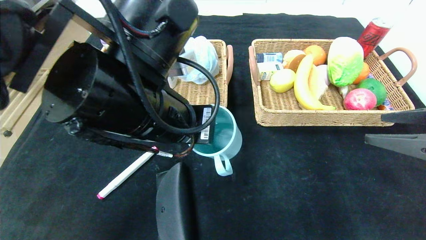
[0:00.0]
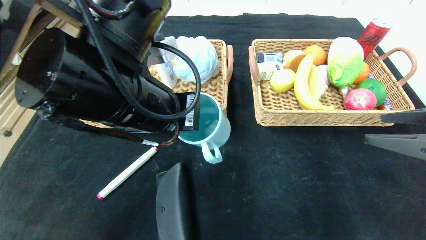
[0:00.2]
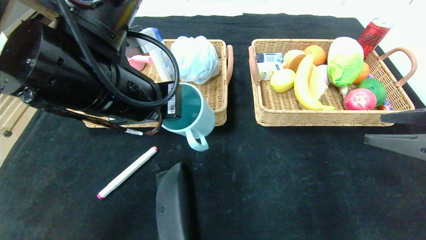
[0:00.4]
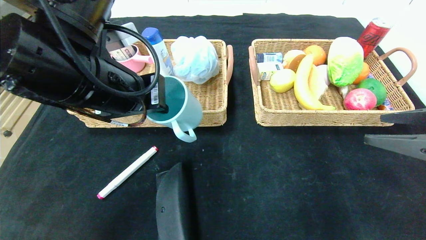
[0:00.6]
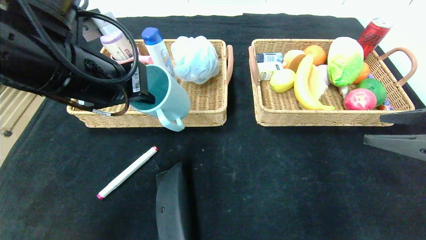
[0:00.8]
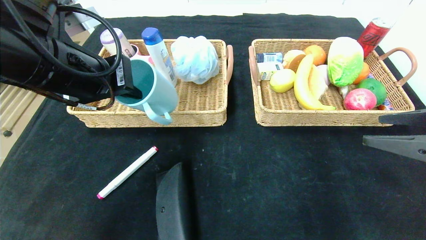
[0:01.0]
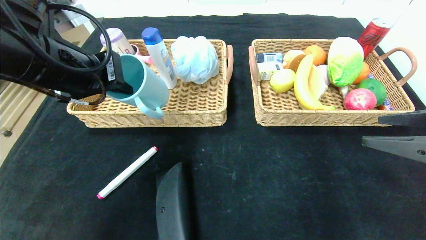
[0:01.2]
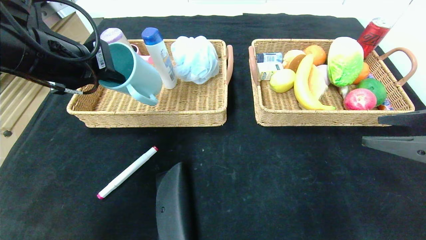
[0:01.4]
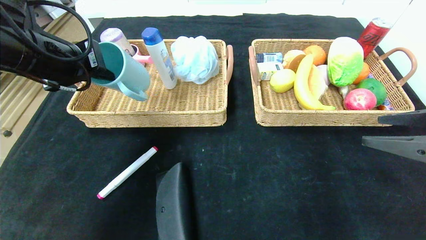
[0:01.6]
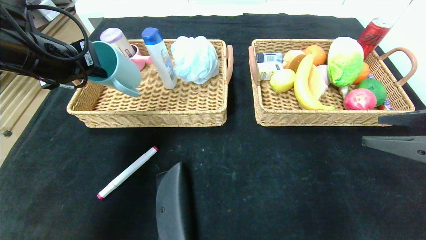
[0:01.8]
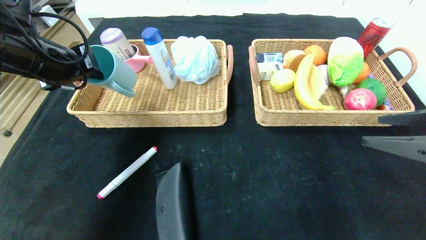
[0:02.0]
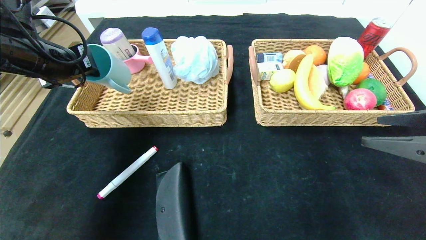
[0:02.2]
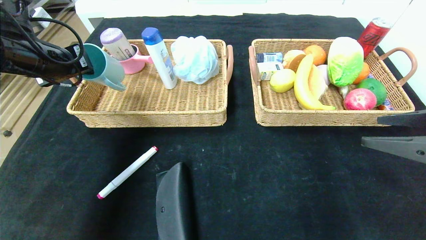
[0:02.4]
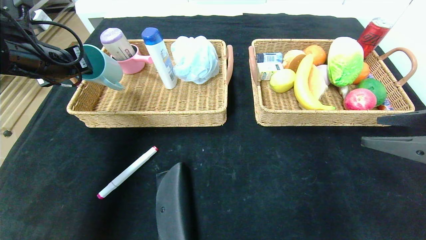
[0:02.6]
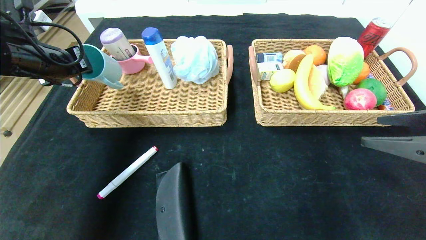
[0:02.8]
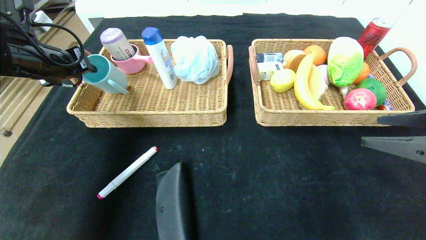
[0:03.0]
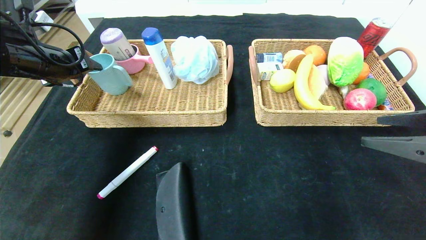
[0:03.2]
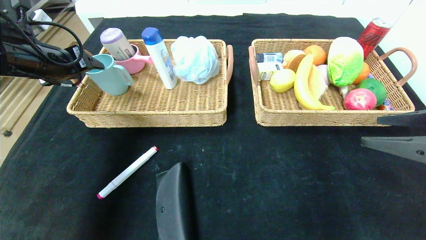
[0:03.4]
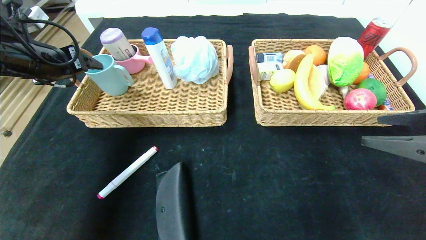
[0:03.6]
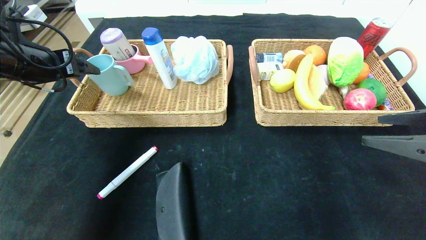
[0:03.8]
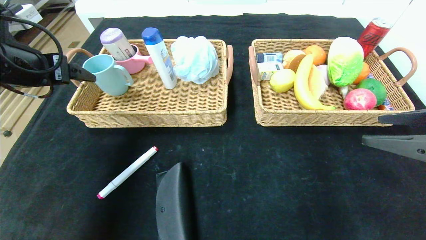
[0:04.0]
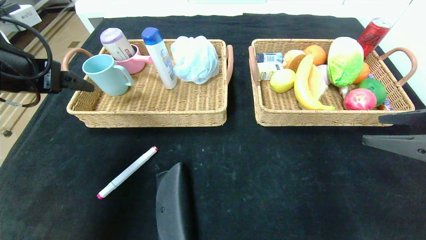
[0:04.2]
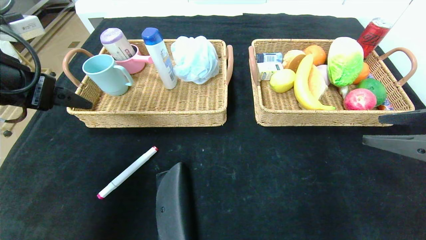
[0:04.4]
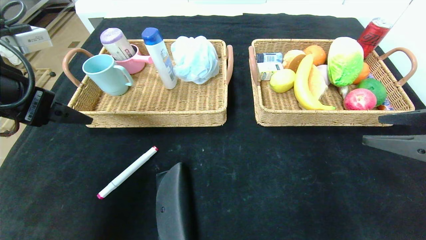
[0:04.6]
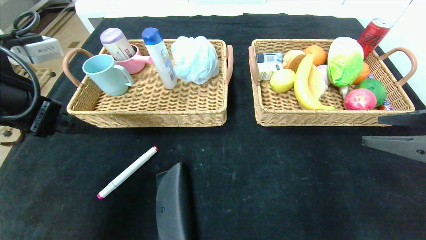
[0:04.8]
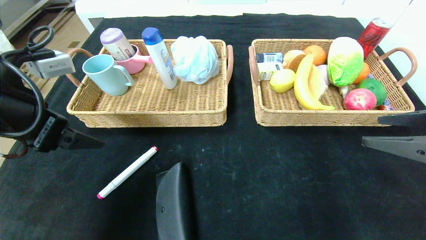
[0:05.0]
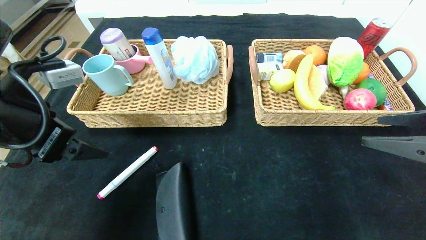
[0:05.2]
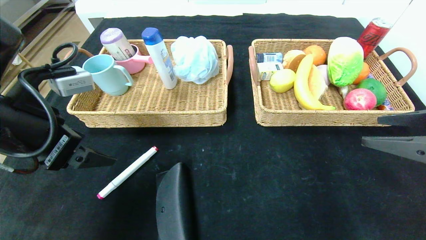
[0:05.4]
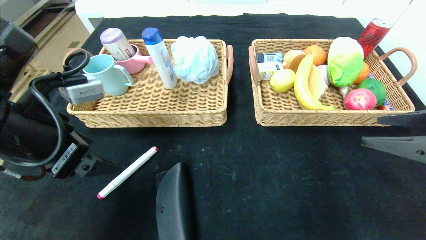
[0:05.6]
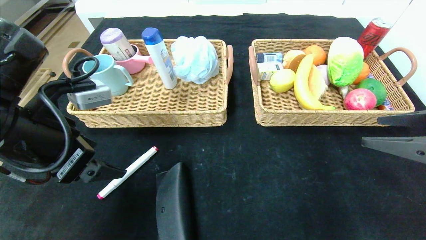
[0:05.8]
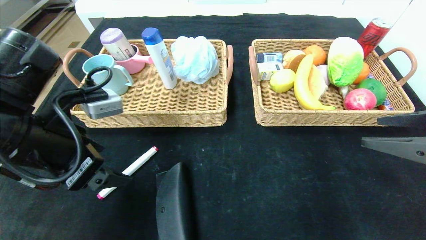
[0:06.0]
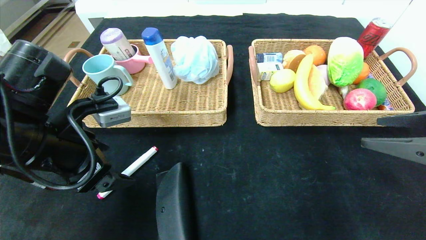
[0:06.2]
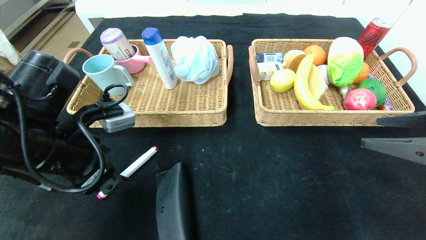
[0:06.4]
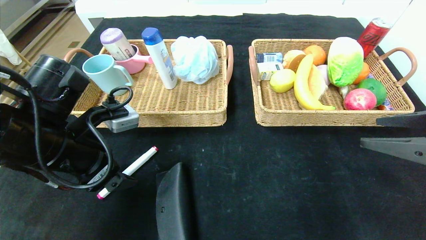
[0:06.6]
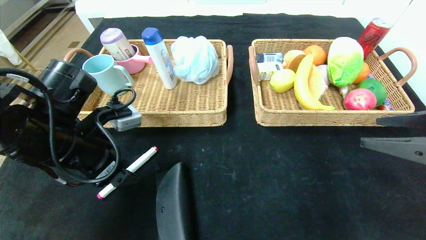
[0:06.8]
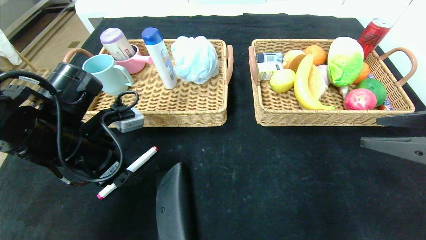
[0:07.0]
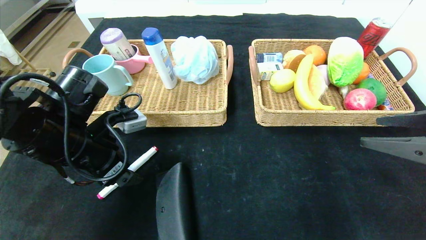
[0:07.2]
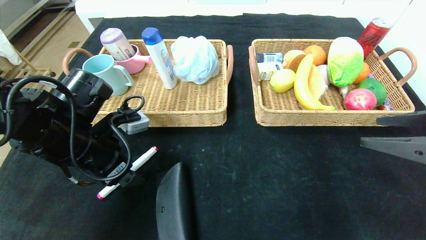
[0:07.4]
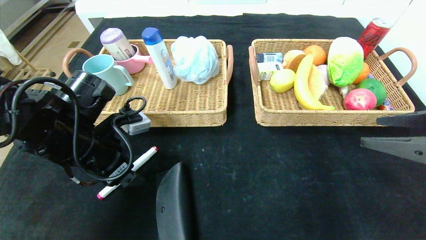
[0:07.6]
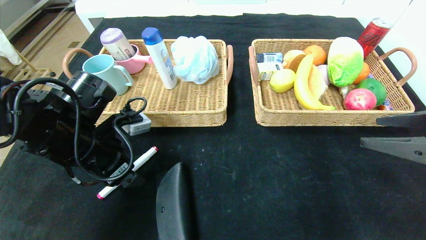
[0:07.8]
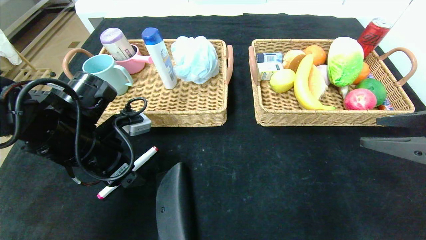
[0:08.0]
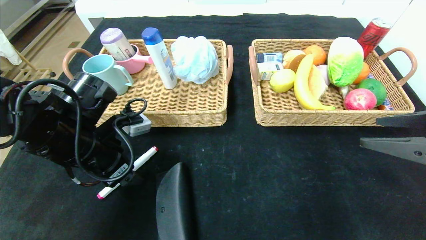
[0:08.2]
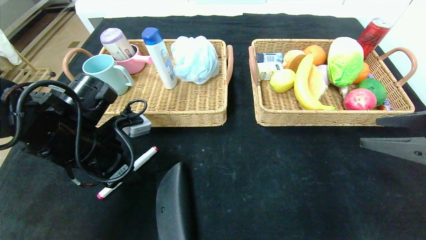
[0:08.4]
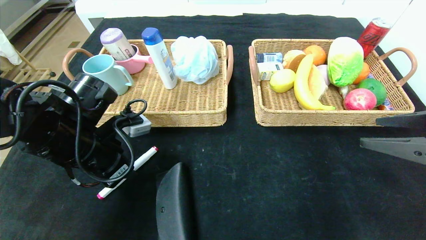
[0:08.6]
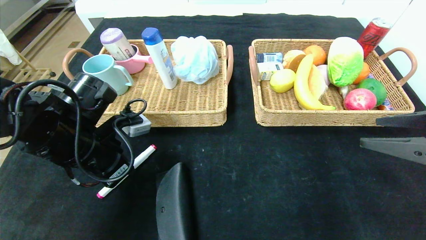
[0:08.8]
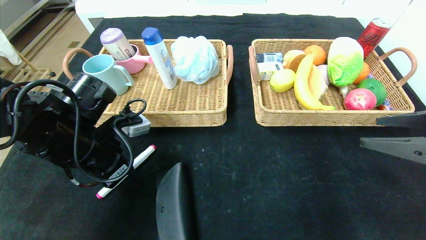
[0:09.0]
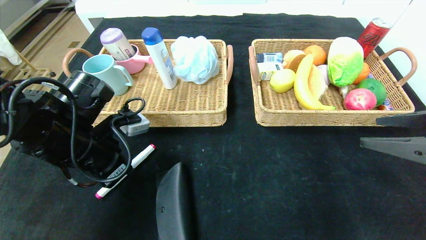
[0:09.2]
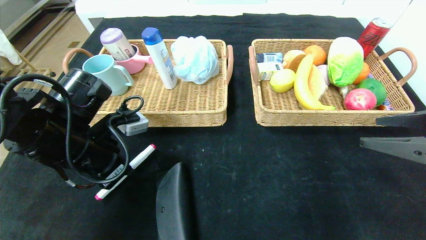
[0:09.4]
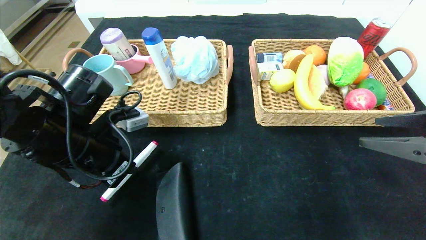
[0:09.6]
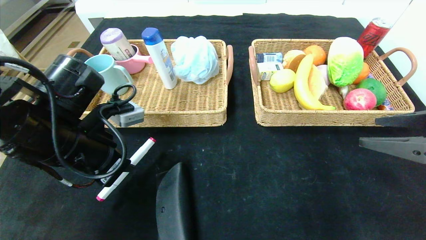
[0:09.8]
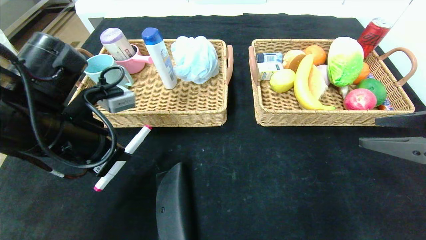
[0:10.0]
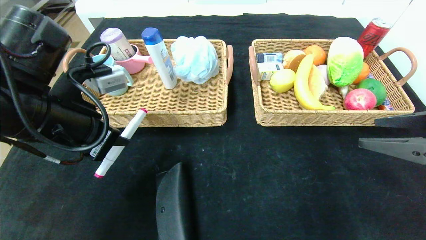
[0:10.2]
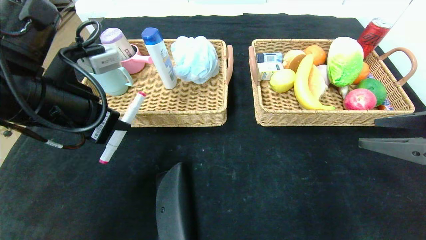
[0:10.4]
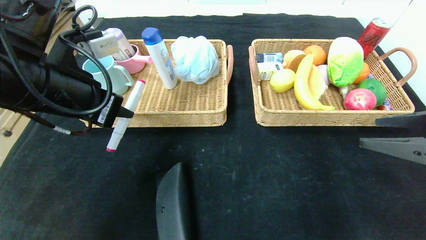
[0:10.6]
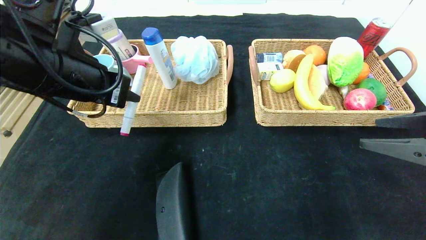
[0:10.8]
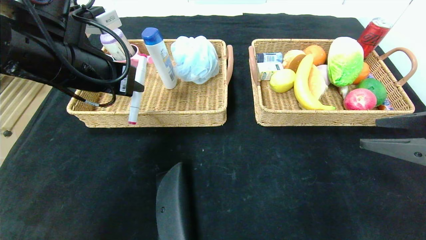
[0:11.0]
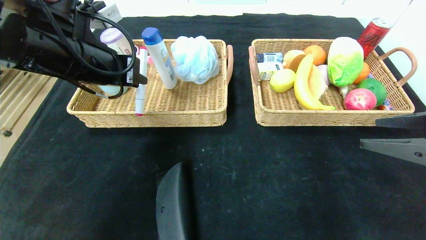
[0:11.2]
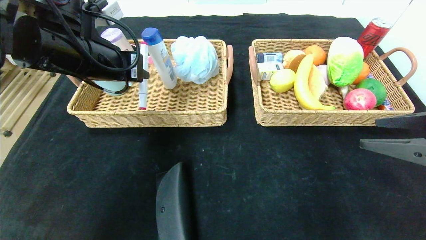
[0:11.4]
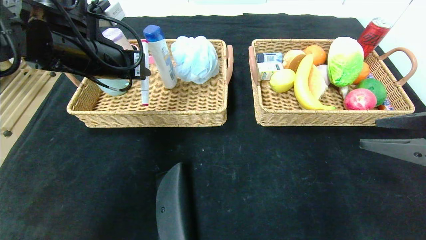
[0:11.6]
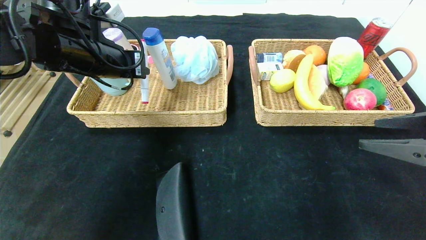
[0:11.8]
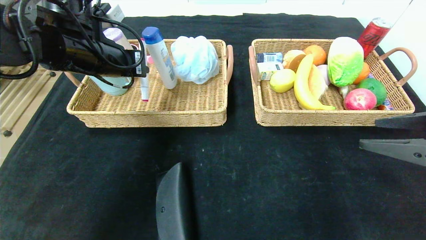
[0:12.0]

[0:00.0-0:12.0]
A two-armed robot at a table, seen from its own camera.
Step, 0:00.0 to 0:04.2: Grasp the blue cup and put it in the left basket.
0:00.0 to 0:01.6: The left gripper moves to the left, about 15 cm.
0:01.6 to 0:03.0: The left gripper is displaced to the left and forward by about 10 cm.
0:03.0 to 0:04.4: The left gripper heads backward, covering approximately 10 cm, and opens up.
0:04.4 to 0:06.0: The left gripper moves downward and to the right, approximately 10 cm.
0:06.0 to 0:07.6: The left gripper goes some 5 cm forward and downward.
0:07.6 to 0:09.0: The left gripper closes.
0:09.0 to 0:10.4: The left gripper goes roughly 10 cm upward.
0:10.4 to 0:12.0: The left gripper is displaced forward by approximately 10 cm.

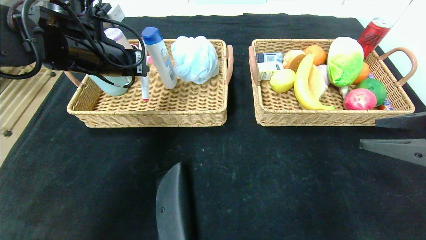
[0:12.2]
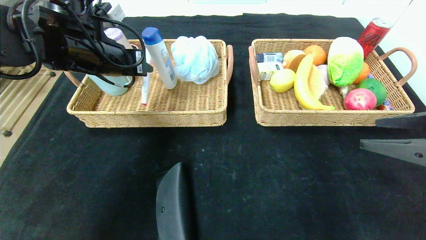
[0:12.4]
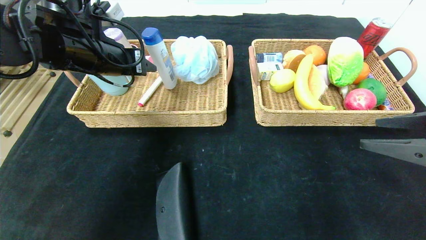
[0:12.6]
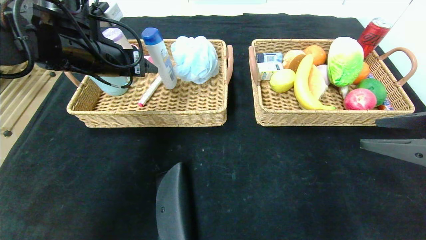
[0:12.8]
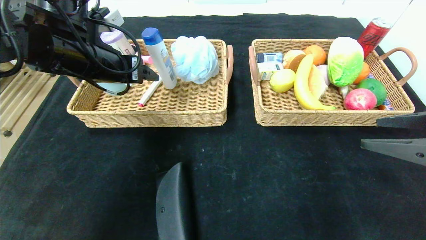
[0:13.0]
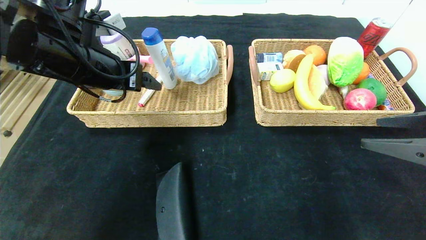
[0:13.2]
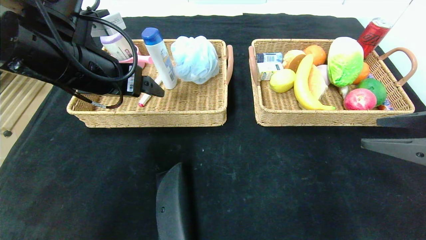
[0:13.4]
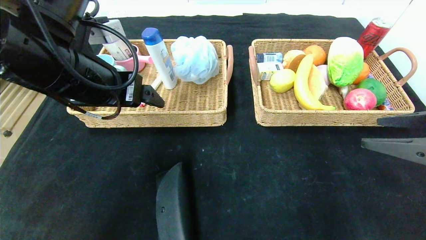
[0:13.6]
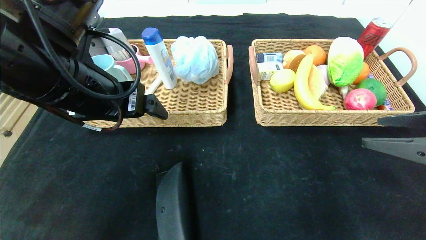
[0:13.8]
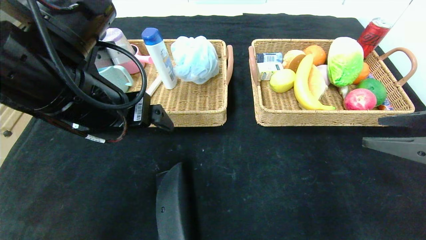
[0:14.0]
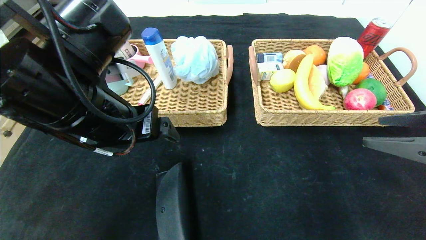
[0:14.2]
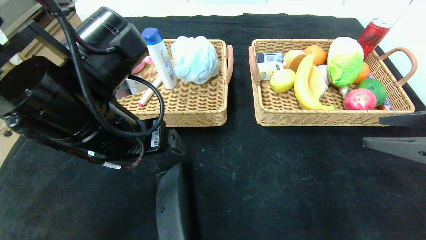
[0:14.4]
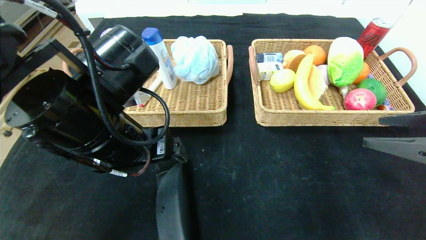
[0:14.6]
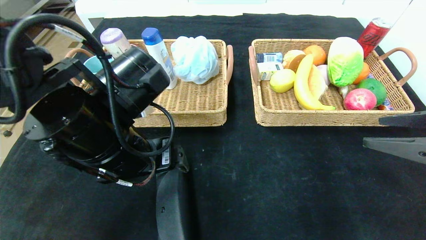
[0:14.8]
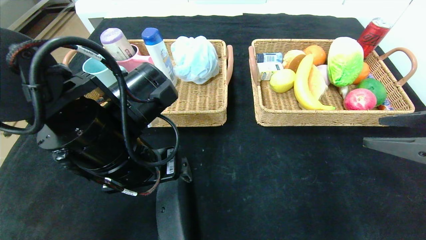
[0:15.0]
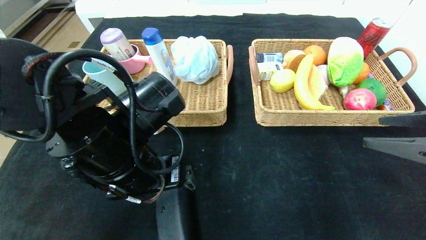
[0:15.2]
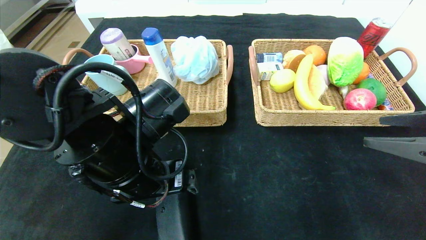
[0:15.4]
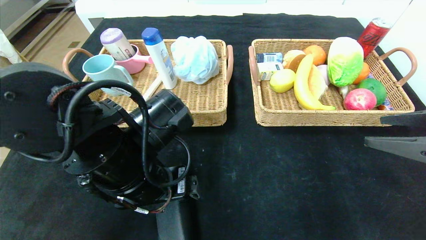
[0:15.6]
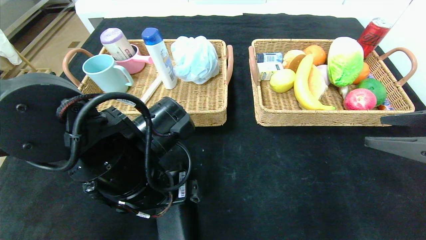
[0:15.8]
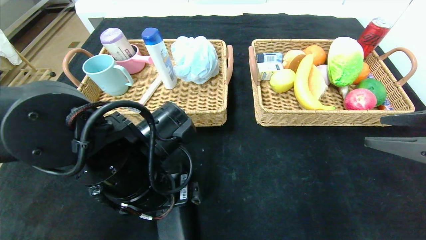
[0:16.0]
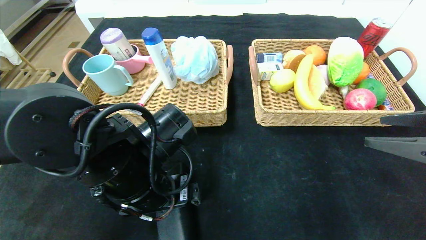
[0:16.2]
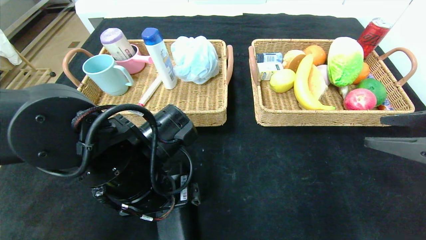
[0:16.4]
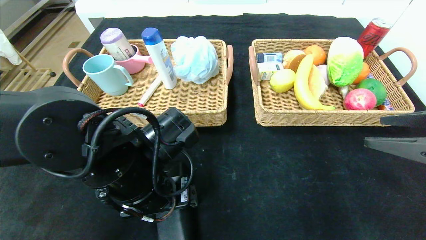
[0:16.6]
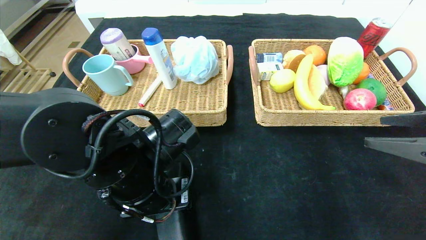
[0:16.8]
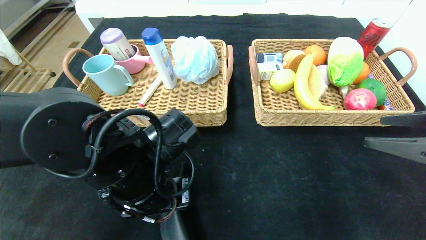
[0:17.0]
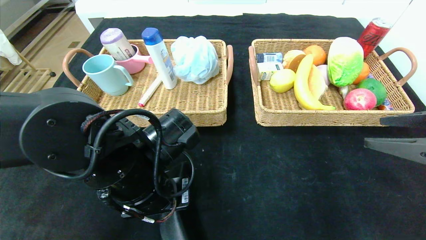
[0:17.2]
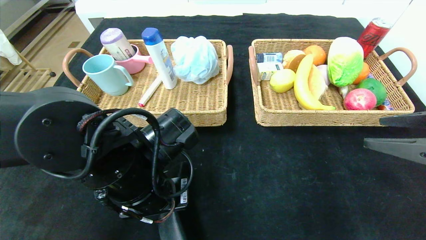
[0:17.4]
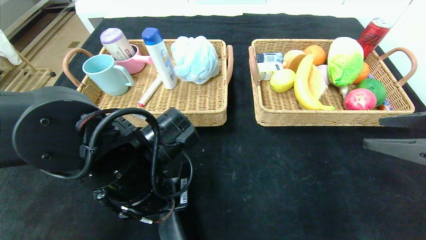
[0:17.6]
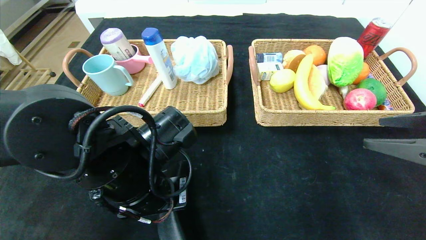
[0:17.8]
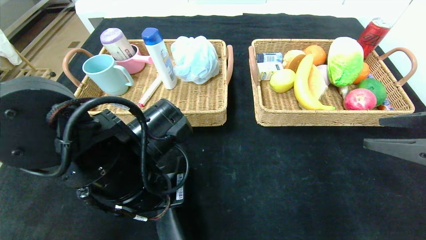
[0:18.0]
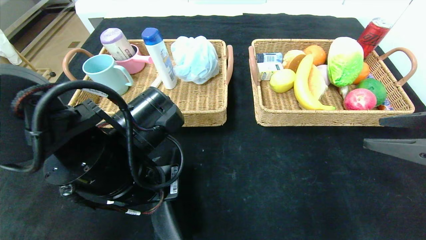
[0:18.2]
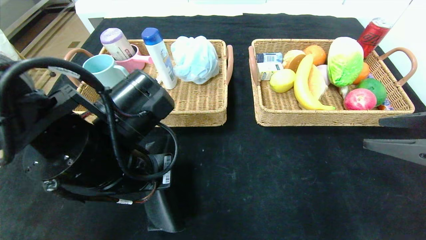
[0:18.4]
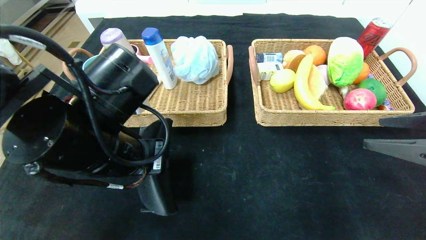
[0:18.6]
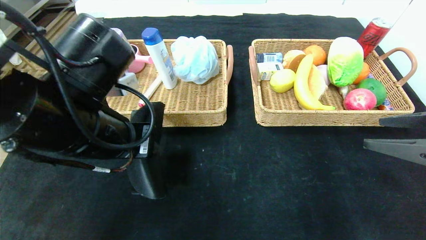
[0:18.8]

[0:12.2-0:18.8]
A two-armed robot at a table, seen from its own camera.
0:12.2 to 0:13.8: The left gripper travels backward by some 10 cm, and opens up.
0:13.8 to 0:15.4: The left gripper moves downward and to the right, some 10 cm.
0:15.4 to 0:17.2: The left gripper closes up.
0:17.2 to 0:18.8: The left gripper goes some 10 cm upward.
